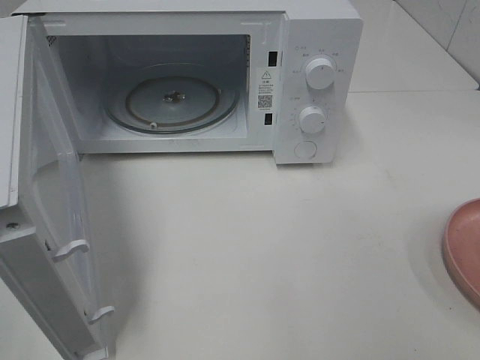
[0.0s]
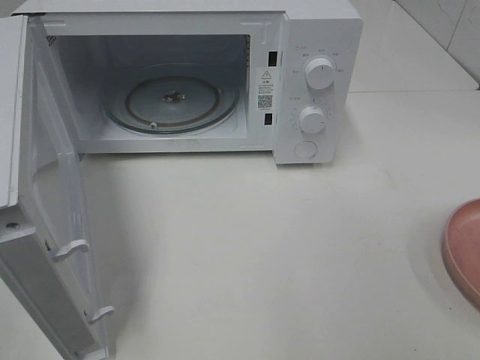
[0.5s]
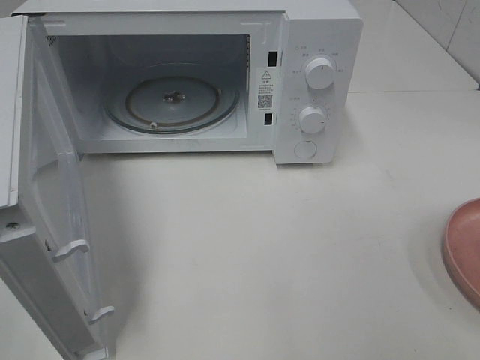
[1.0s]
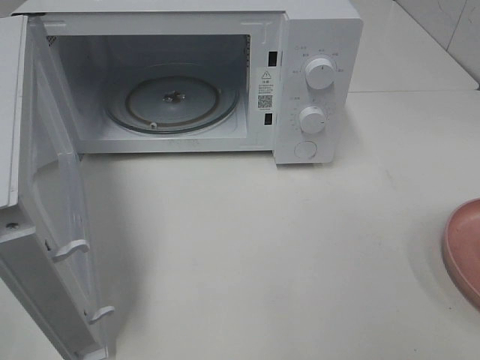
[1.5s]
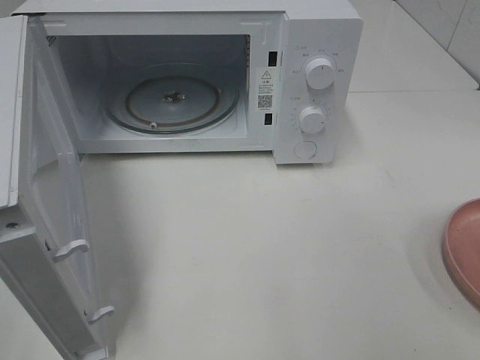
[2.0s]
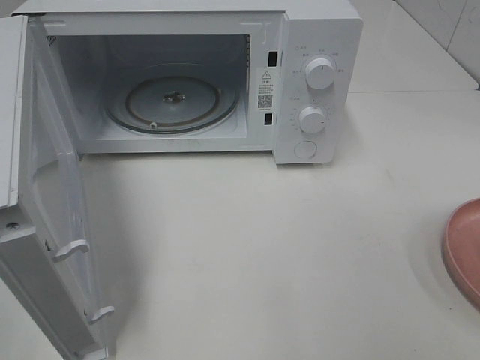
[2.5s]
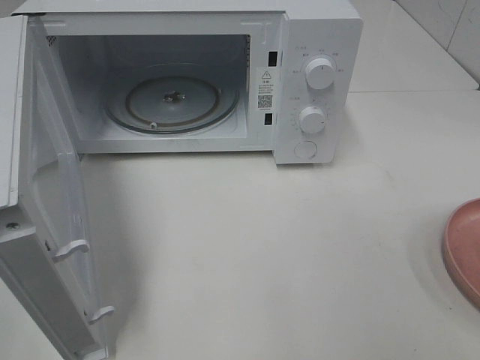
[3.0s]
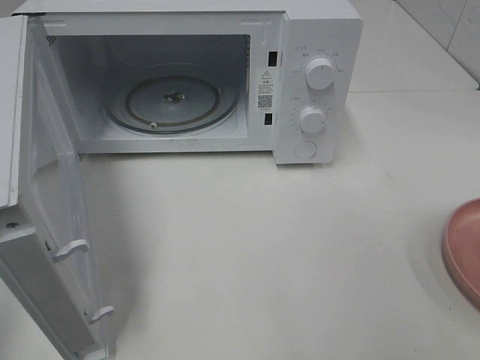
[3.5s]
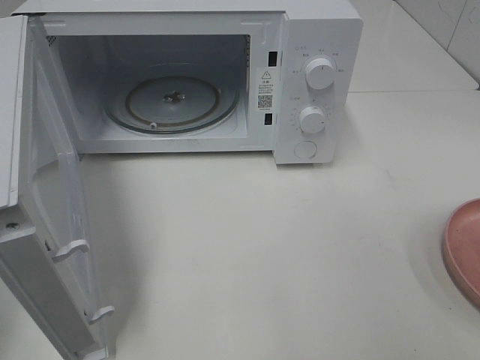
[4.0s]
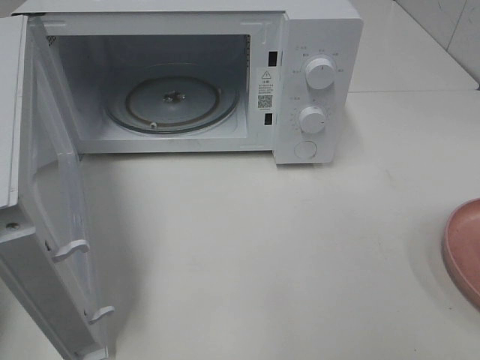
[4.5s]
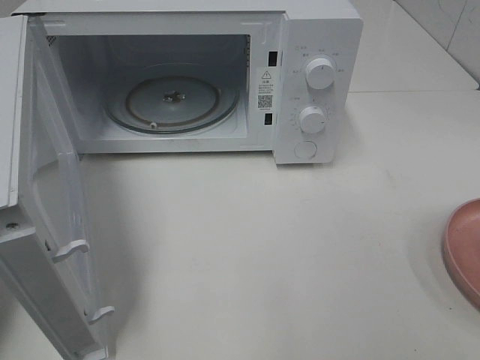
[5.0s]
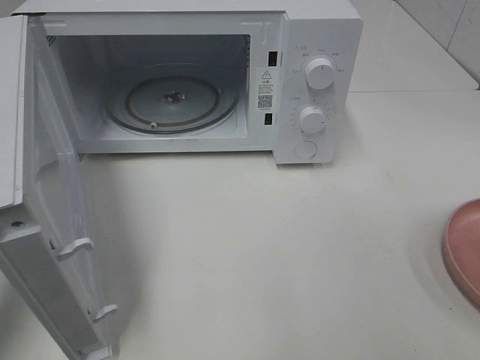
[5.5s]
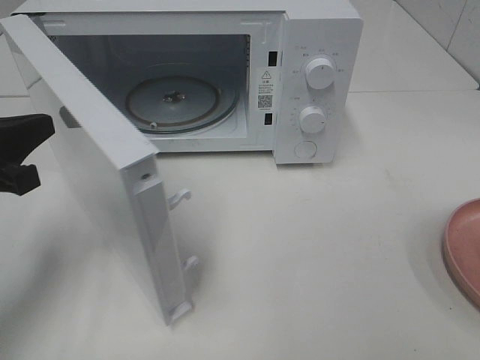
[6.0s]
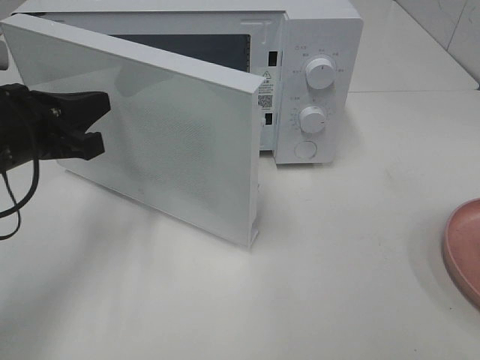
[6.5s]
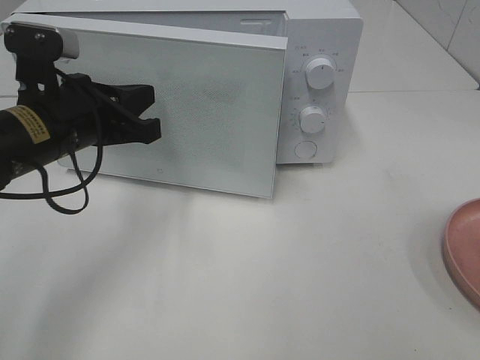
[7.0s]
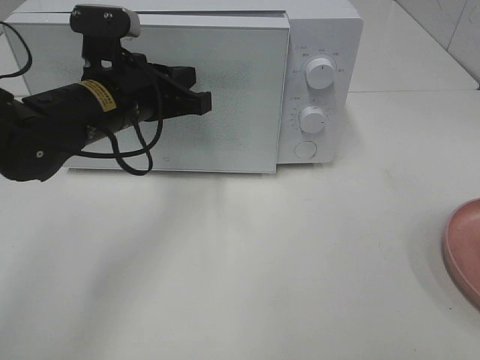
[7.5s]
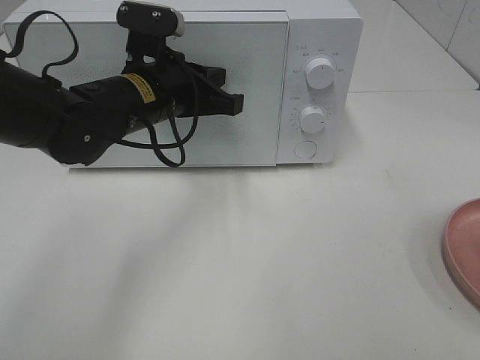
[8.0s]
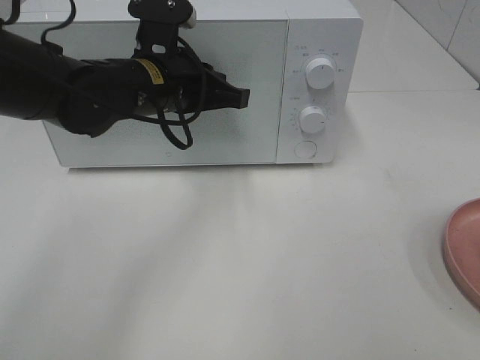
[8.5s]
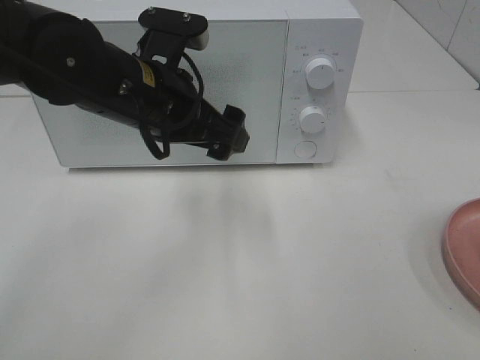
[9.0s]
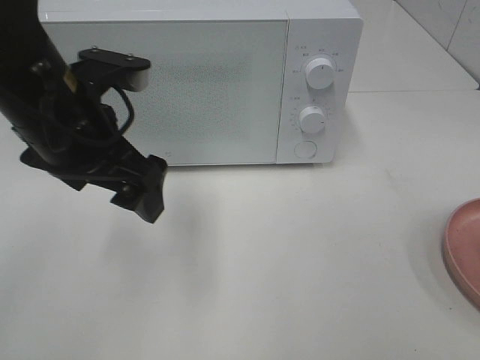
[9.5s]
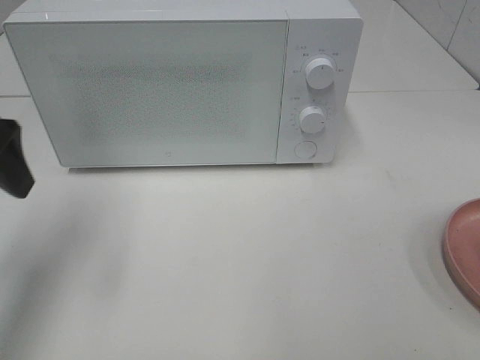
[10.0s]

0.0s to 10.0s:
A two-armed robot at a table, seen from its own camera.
Task of the whole recording: Heat the burger.
Step, 0.0s to 8.5s: Left hand: close the microwave door.
4.0s to 6.0s: The left gripper moves forward, downward and to the right, about 20 cm.
6.0s to 8.0s: The left gripper goes approximately 20 cm to the right and forward.
8.0s to 10.0s: The left gripper travels to the left, backward and upward by about 20 cm, and opens up.

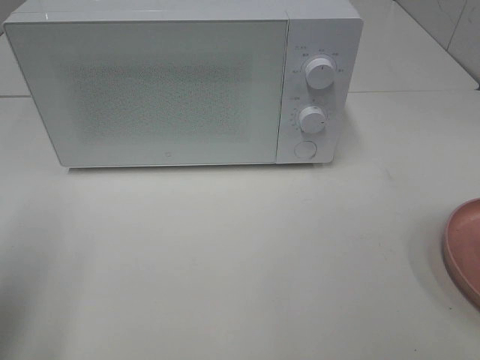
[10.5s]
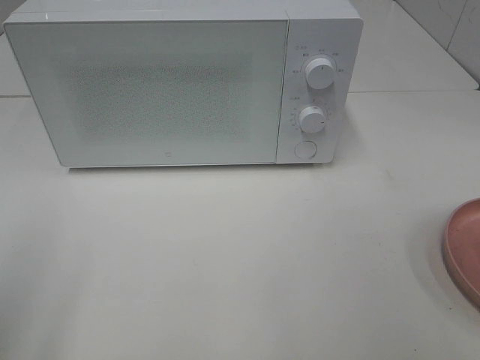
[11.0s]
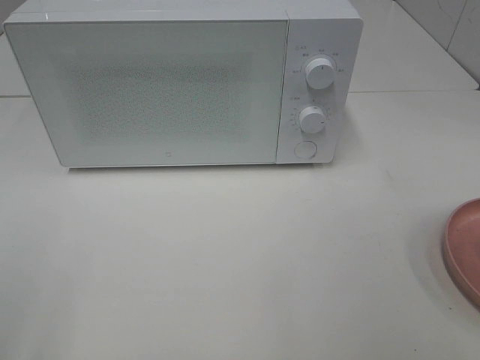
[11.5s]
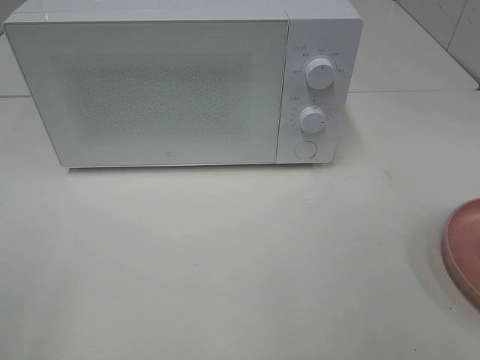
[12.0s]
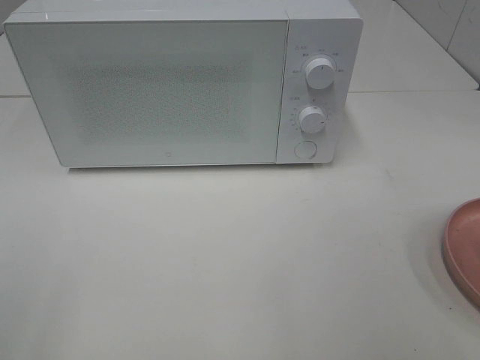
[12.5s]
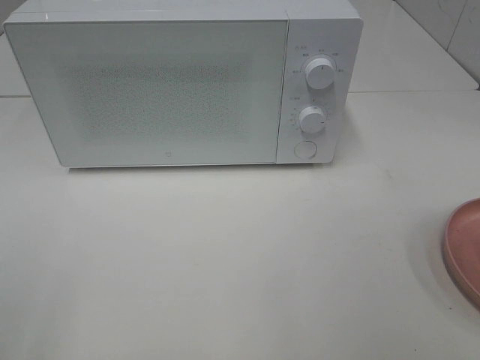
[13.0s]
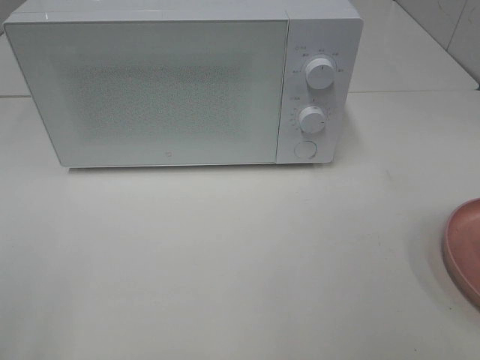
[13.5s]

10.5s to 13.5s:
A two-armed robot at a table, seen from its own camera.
Task of the whole recording: Heat the burger.
10.5s to 12.0s: The left gripper heads backward, covering approximately 15 cm.
12.0s to 13.5s: Neither gripper changes place.

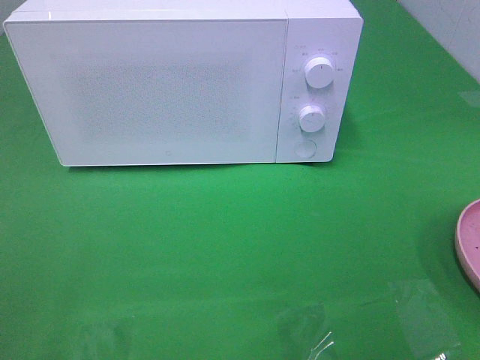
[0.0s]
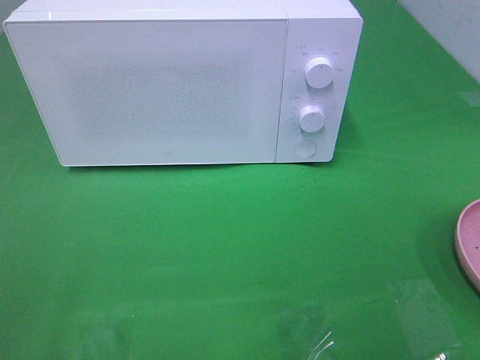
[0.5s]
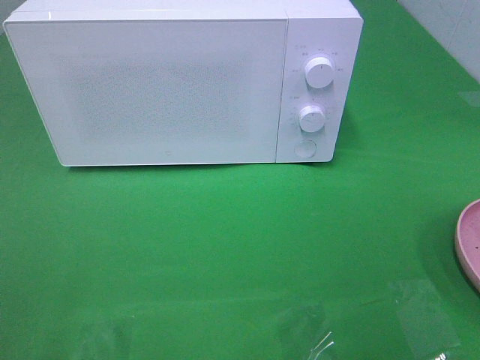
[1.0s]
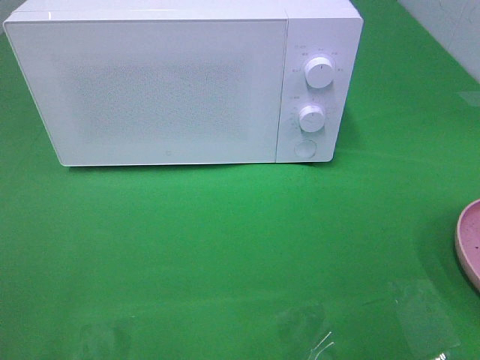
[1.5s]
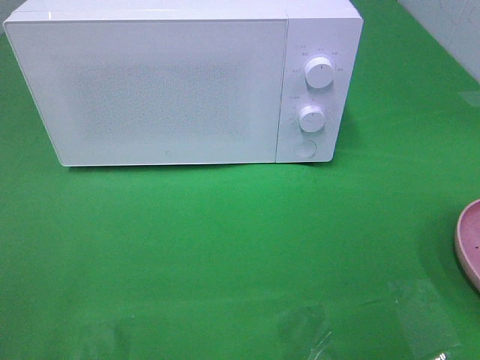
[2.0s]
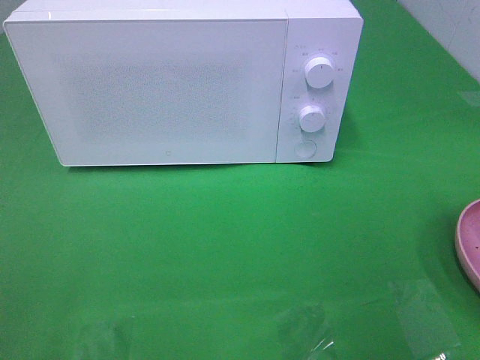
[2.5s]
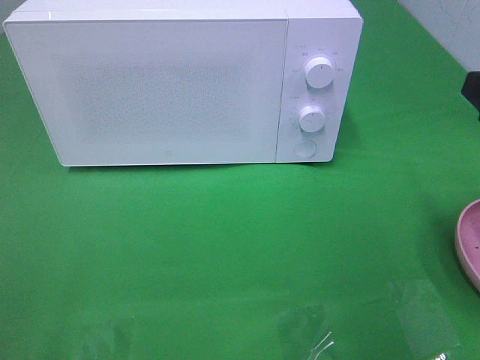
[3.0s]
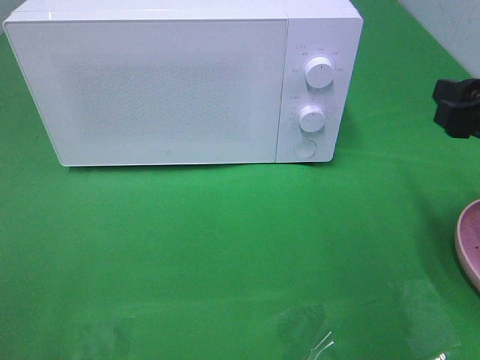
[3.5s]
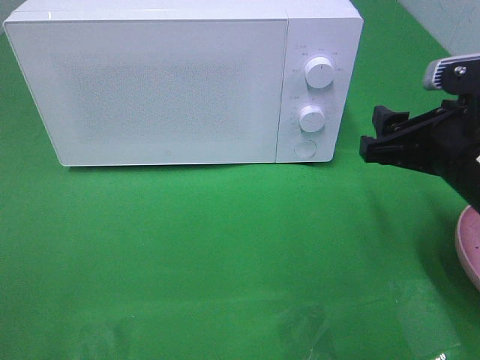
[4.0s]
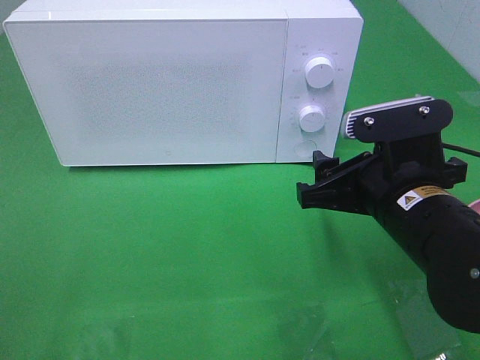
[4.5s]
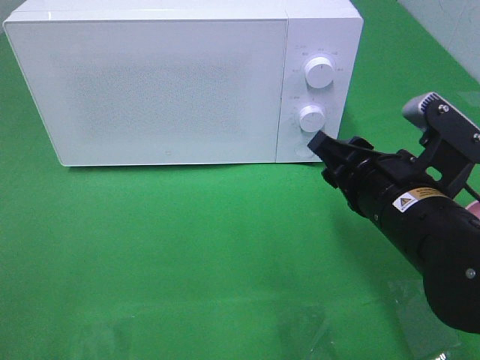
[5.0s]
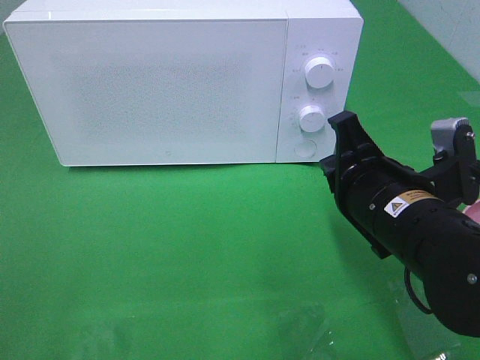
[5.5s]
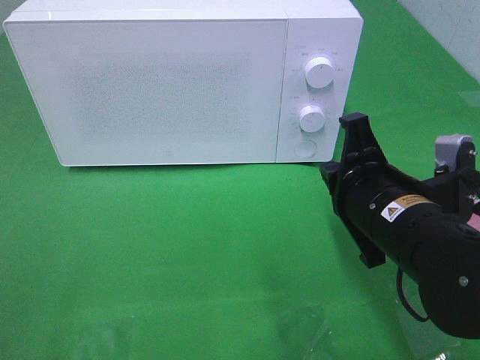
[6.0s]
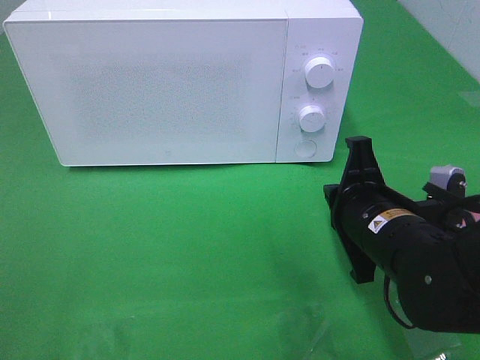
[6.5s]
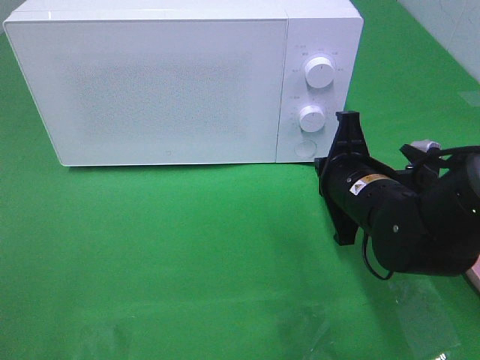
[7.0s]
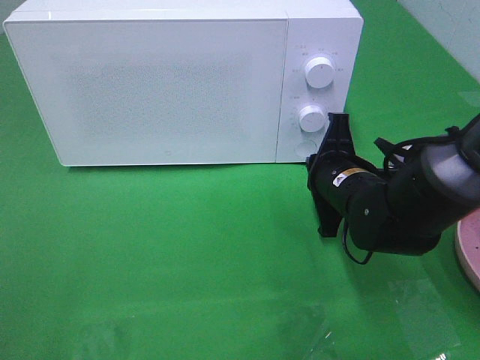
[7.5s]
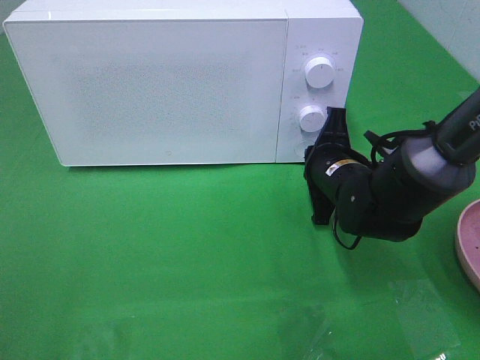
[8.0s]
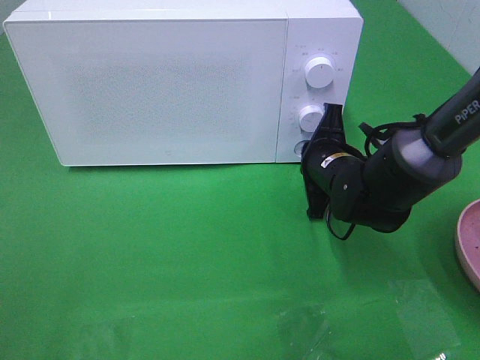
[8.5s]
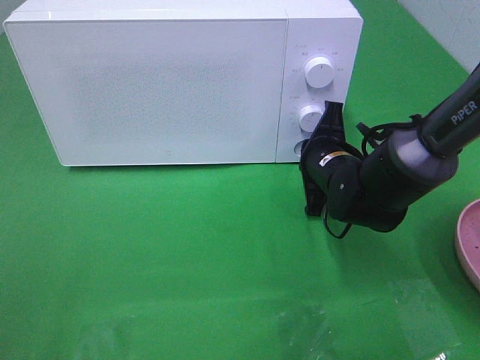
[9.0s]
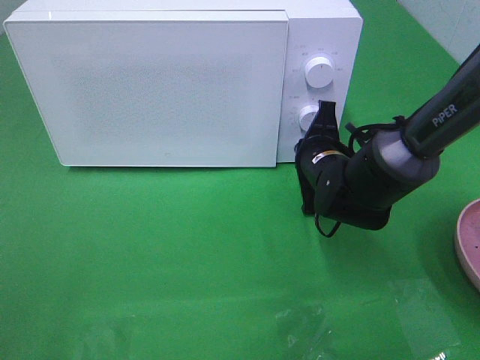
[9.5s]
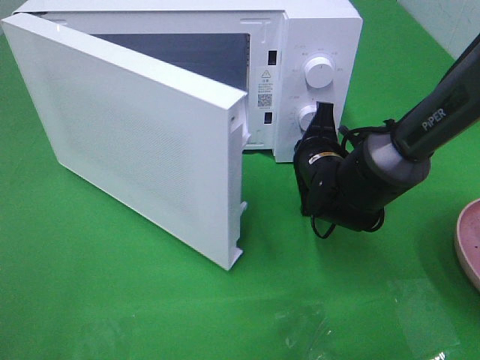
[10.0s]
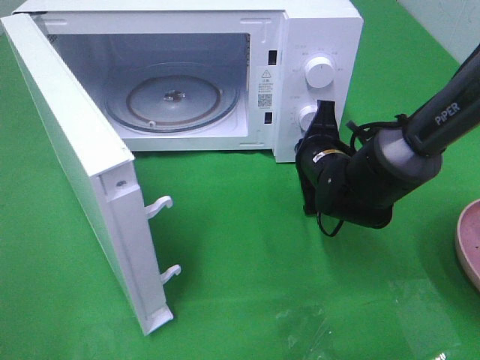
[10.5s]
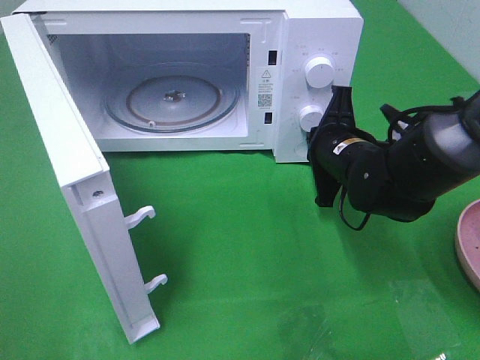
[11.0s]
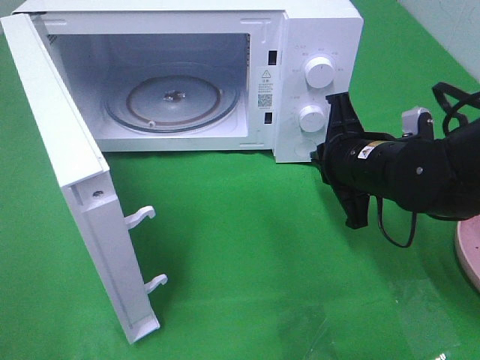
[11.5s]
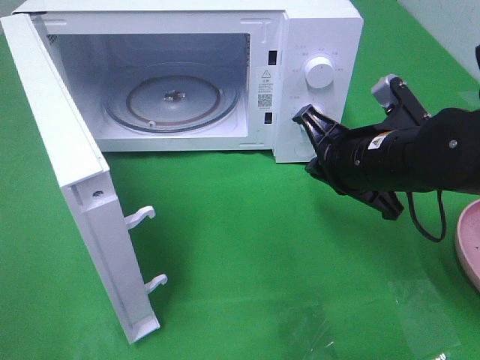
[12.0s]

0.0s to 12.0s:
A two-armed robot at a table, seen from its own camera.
Task of the whole recording: Heat the burger.
Step, 0.0s to 11.5s: Right hand: press the switch.
2.0s to 4.0s: The right gripper goes roughly 15 cm forward, downward and to the left.
4.0s to 6.0s: The right gripper goes about 5 cm to the left, and closes up.
6.0s to 8.0s: The right gripper shifts about 15 cm forward and downward.
10.0s to 12.0s: The right gripper moves upward and backward, about 10 cm.

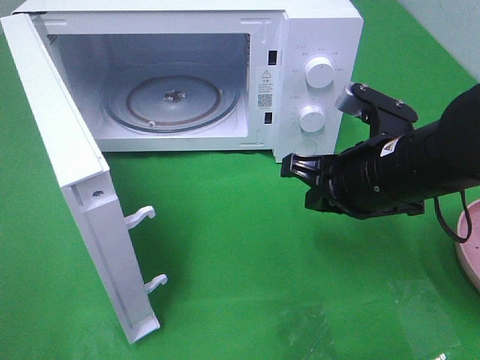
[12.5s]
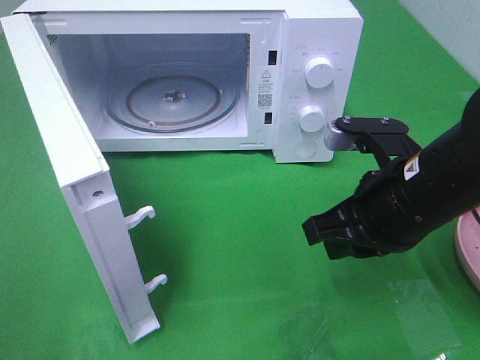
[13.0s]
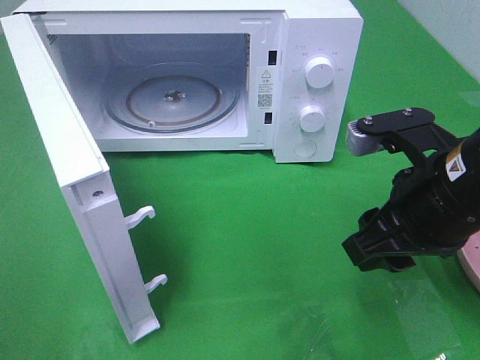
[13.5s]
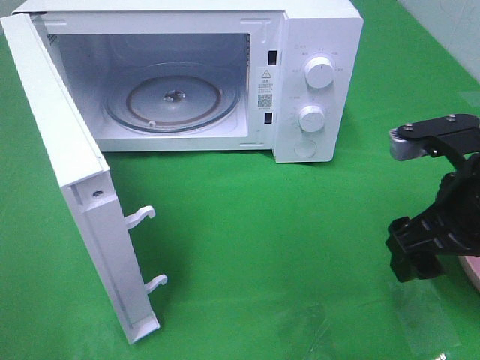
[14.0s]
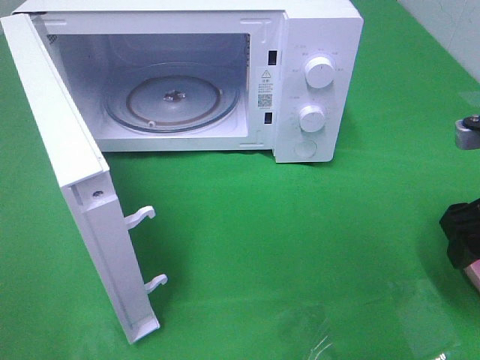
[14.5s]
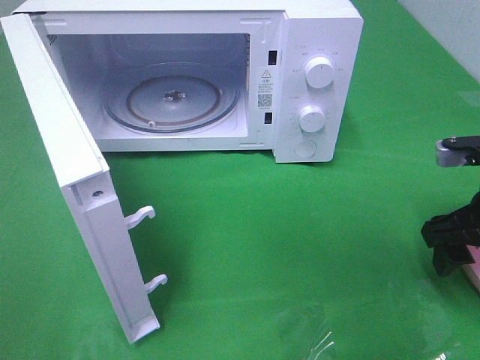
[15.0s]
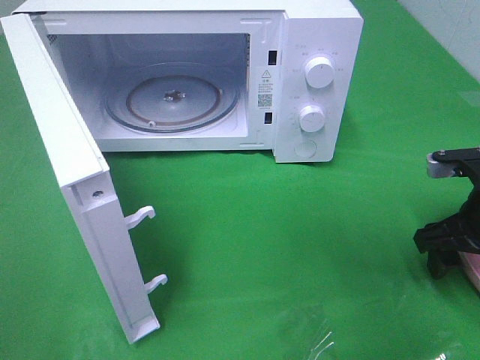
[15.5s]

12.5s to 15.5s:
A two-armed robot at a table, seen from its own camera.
Task of the whole recording: Heat the burger.
12.5s to 14.0s: The right gripper shifts some 5 cm to the right, and opens.
14.0s to 15.5s: The right gripper moves downward and to the right, approximately 10 cm.
